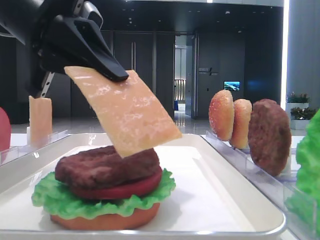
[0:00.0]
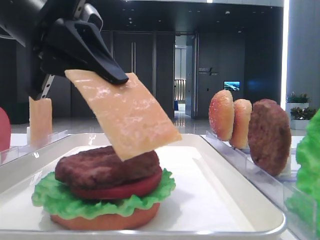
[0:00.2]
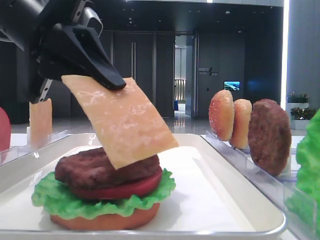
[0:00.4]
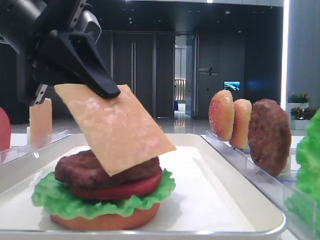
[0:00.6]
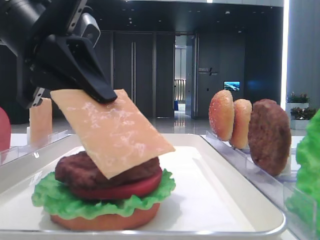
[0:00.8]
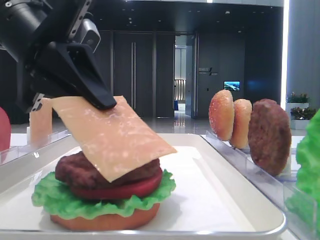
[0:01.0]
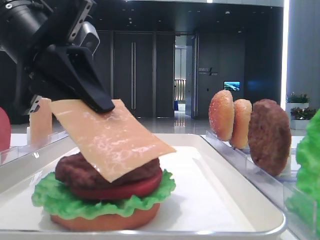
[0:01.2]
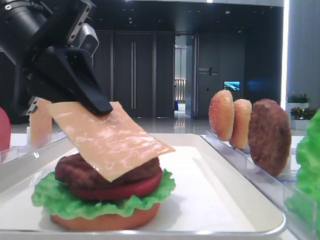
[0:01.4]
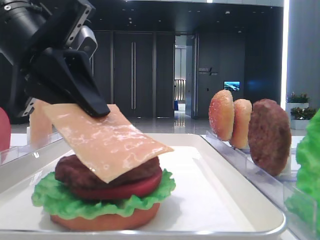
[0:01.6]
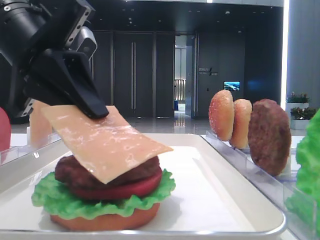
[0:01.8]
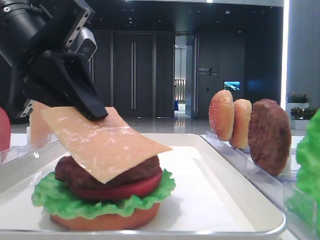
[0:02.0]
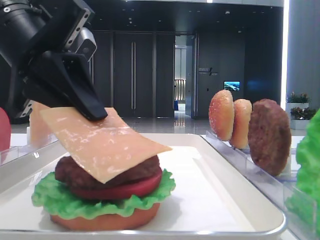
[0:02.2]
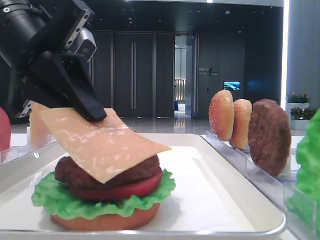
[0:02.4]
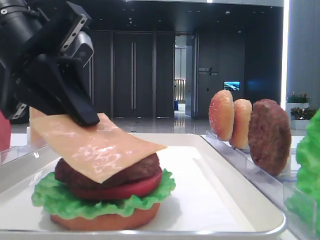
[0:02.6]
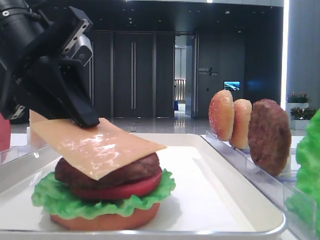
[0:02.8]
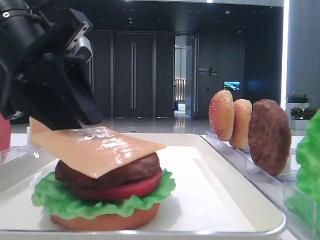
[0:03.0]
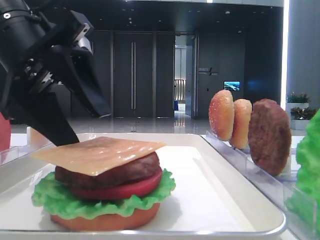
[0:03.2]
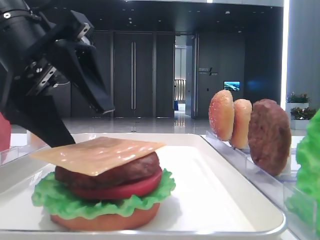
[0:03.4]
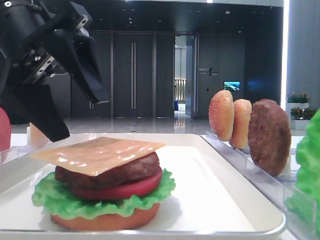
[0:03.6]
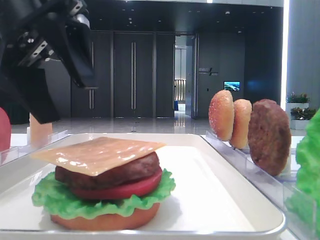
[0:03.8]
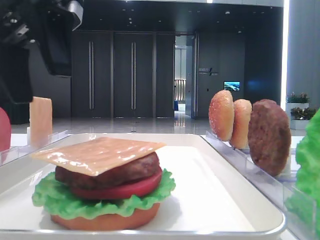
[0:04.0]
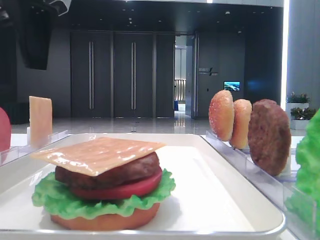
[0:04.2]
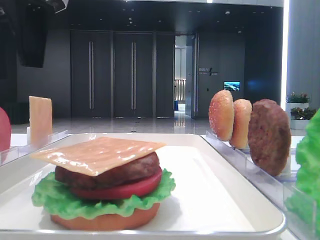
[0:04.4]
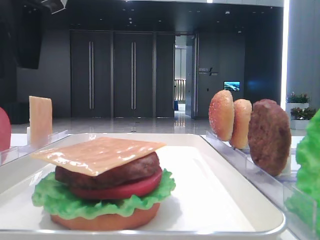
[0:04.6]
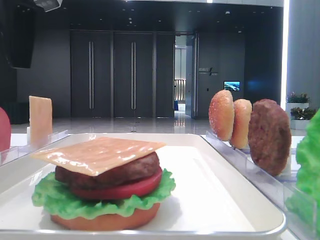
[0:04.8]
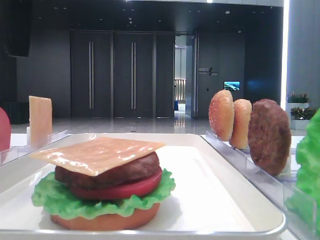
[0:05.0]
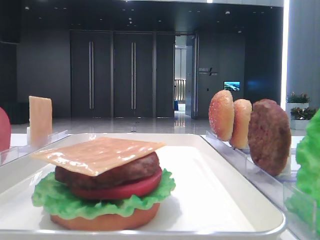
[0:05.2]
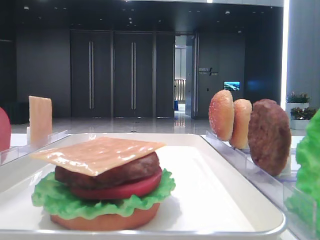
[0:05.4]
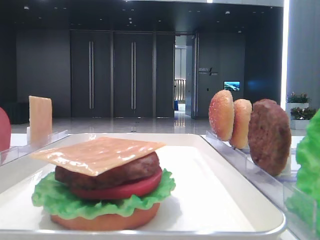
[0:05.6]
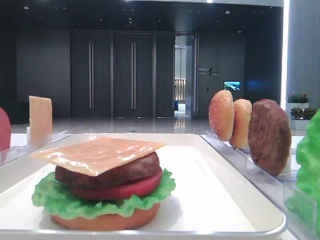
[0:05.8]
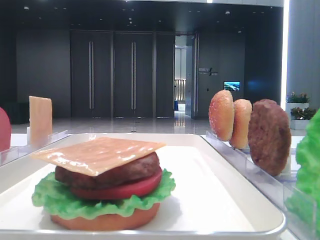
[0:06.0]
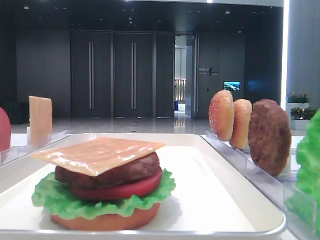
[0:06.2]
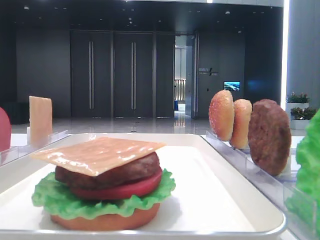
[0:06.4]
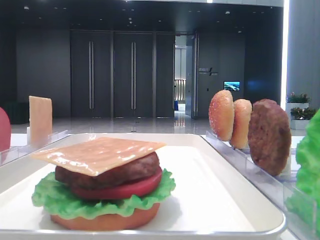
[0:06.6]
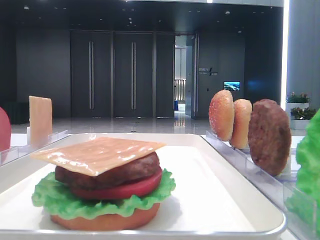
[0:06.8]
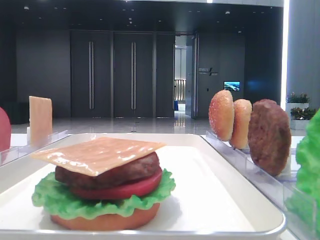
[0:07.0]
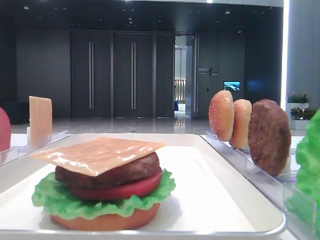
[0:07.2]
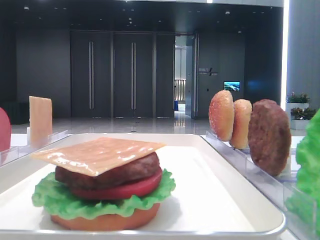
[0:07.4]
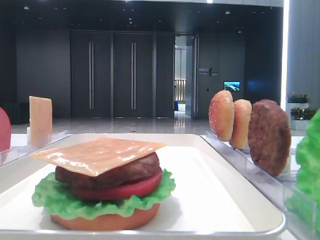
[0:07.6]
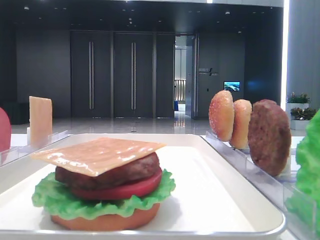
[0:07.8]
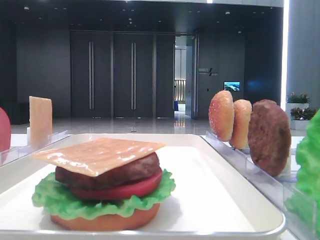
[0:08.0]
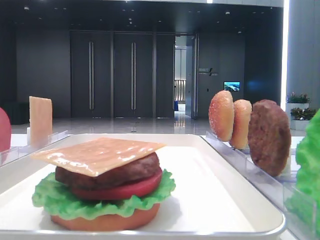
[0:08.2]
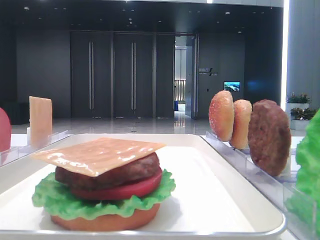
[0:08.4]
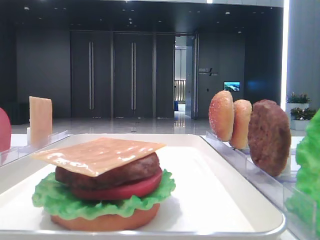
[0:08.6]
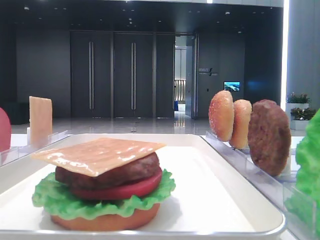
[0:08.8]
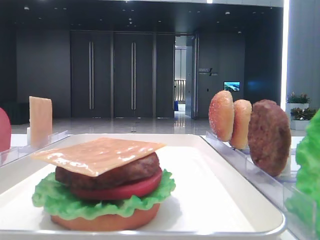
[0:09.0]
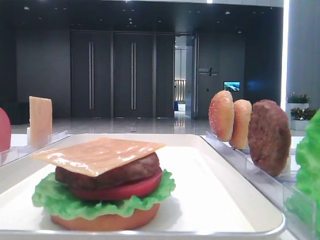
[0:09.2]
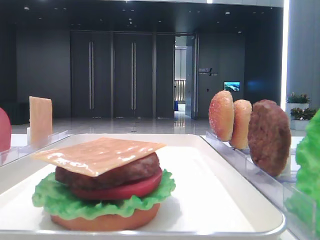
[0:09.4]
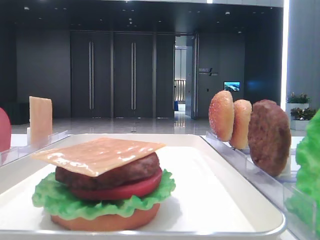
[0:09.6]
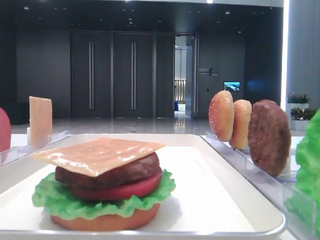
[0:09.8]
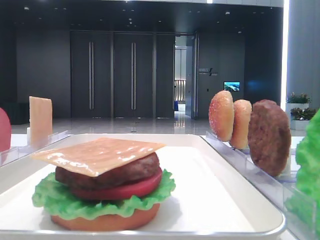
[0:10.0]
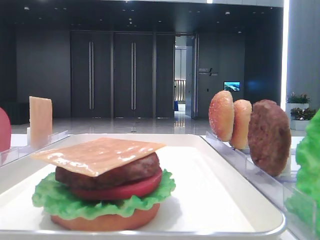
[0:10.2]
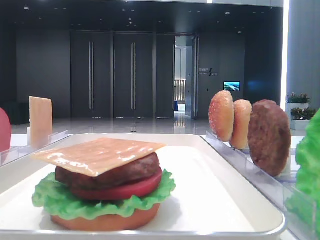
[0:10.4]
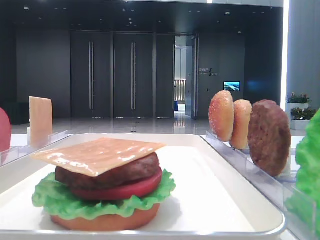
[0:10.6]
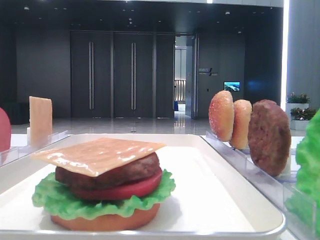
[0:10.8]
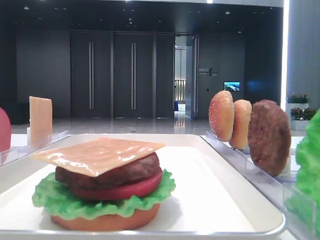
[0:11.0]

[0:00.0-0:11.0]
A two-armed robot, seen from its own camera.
Step, 0:00.0 to 0:03.2: Place the cheese slice on the patty with the left hand.
0:00.0 to 0:01.6: The grippers make only small movements.
0:01.6 to 0:03.2: The left gripper opens up.
0:03.2 to 0:04.8: The left gripper goes roughly 10 cm upward.
0:04.8 to 0:06.2: The left gripper is displaced to the left by some 15 cm.

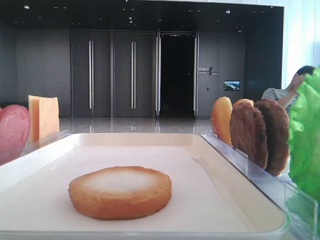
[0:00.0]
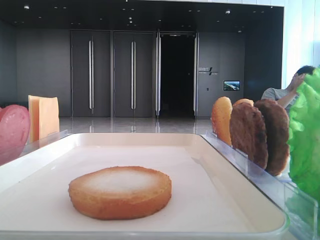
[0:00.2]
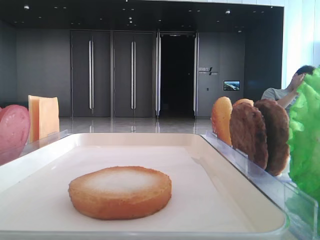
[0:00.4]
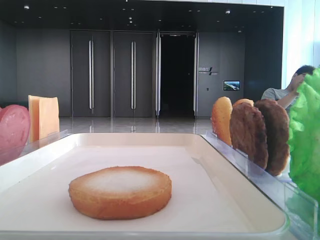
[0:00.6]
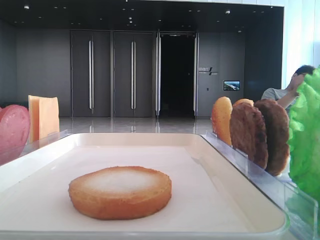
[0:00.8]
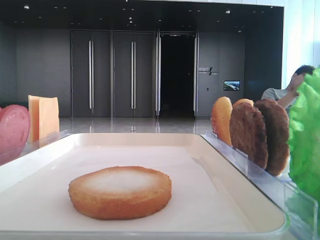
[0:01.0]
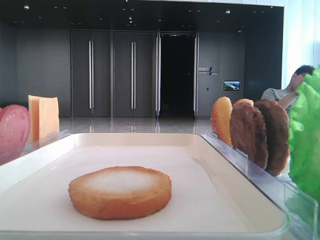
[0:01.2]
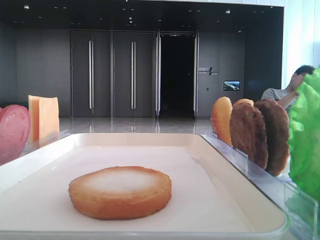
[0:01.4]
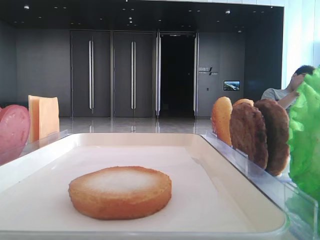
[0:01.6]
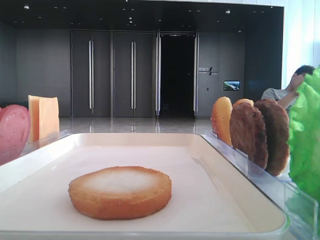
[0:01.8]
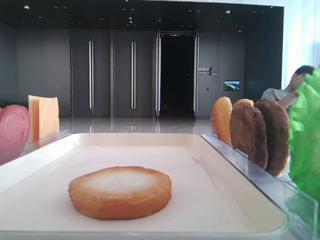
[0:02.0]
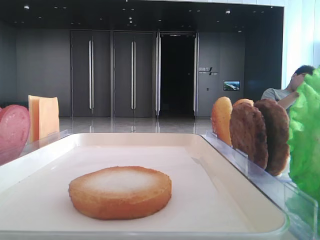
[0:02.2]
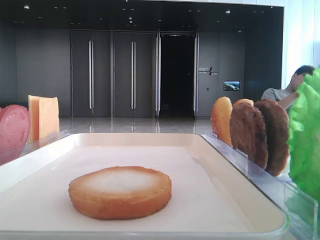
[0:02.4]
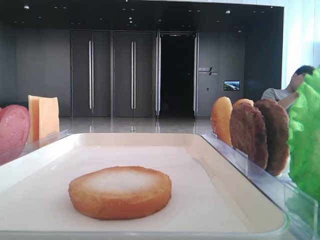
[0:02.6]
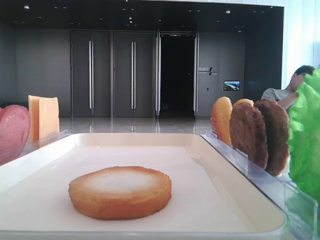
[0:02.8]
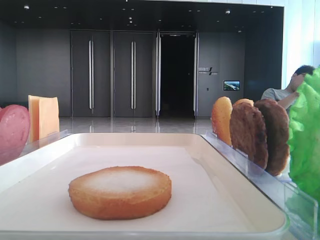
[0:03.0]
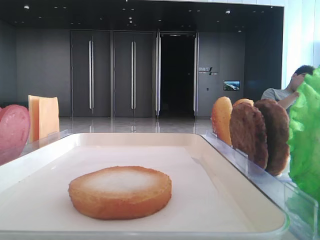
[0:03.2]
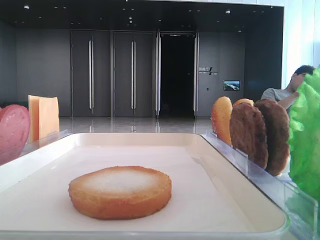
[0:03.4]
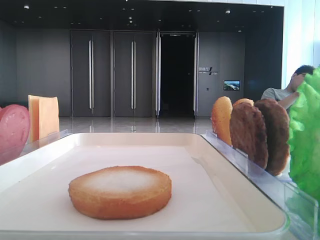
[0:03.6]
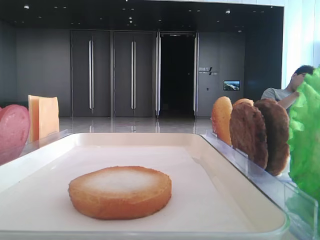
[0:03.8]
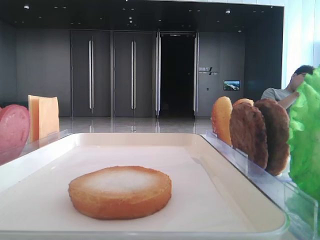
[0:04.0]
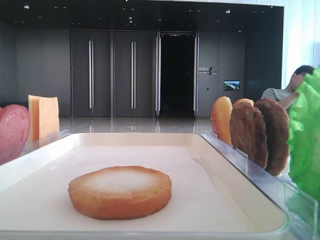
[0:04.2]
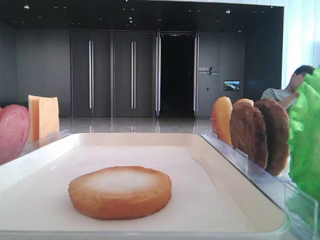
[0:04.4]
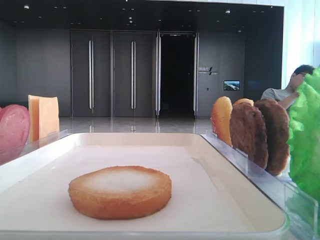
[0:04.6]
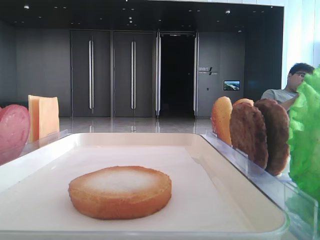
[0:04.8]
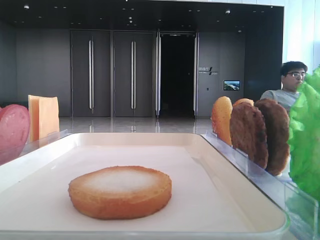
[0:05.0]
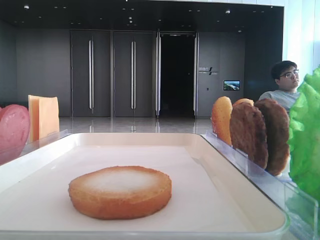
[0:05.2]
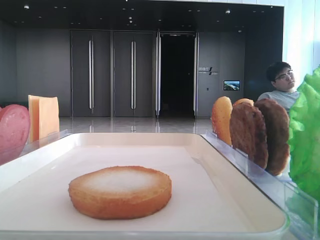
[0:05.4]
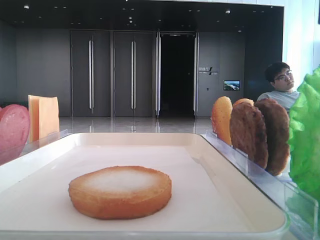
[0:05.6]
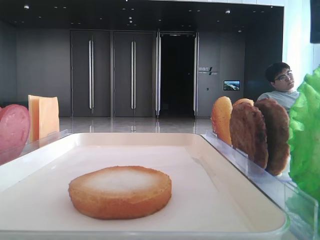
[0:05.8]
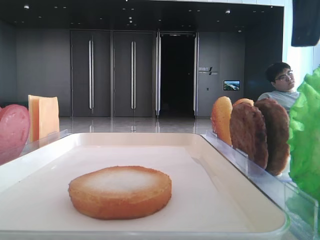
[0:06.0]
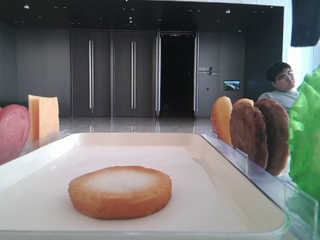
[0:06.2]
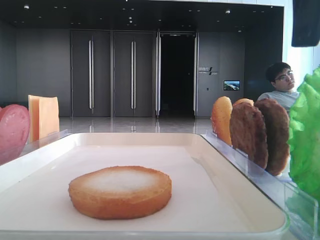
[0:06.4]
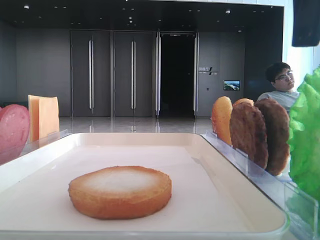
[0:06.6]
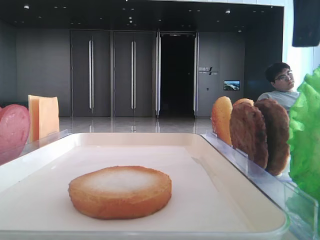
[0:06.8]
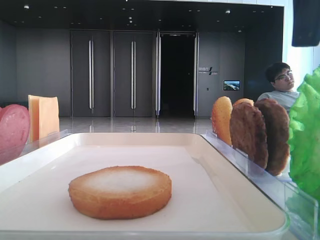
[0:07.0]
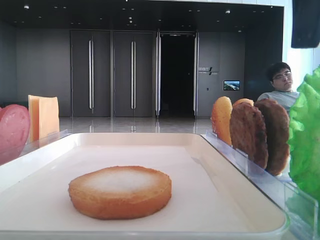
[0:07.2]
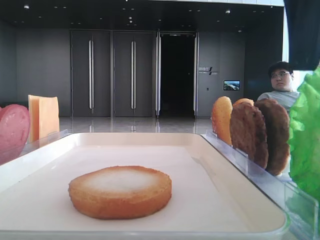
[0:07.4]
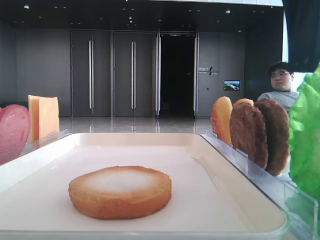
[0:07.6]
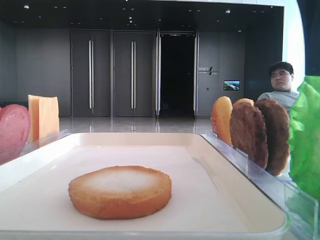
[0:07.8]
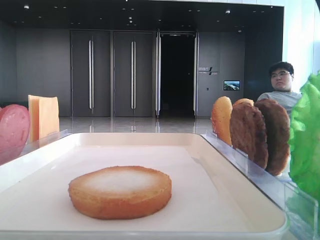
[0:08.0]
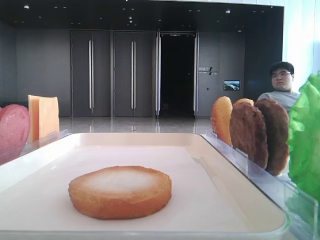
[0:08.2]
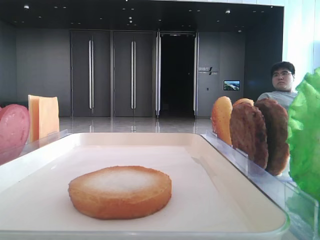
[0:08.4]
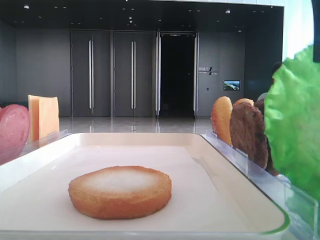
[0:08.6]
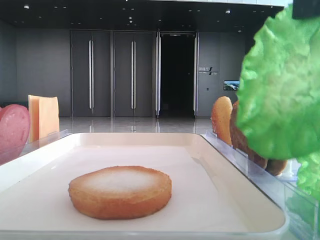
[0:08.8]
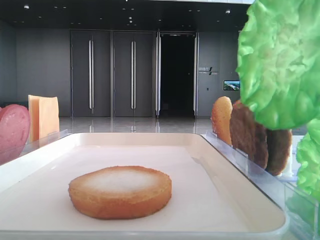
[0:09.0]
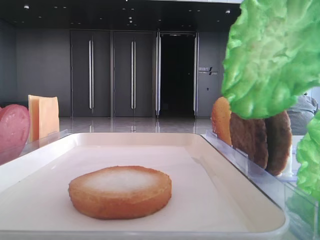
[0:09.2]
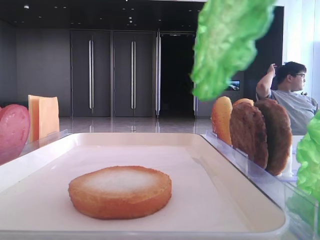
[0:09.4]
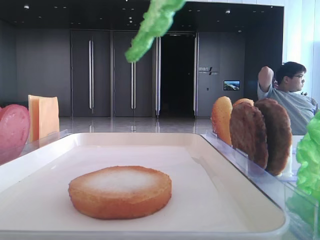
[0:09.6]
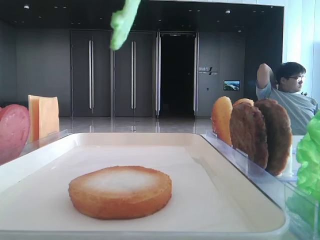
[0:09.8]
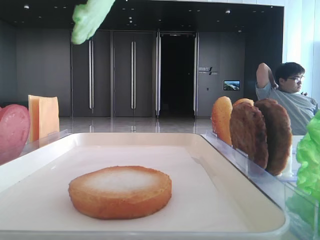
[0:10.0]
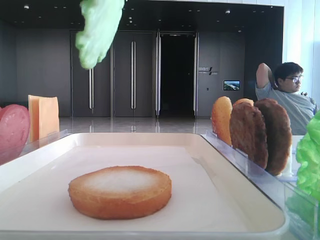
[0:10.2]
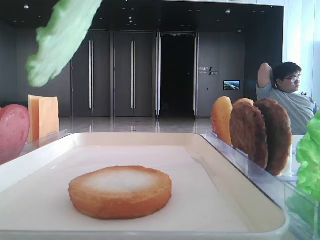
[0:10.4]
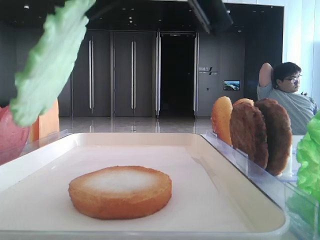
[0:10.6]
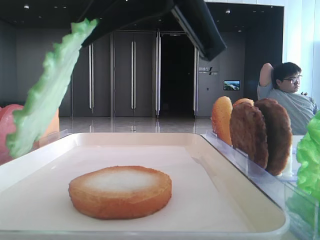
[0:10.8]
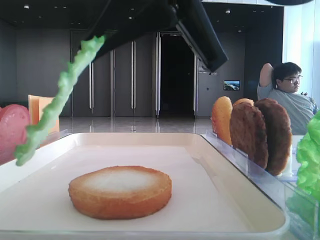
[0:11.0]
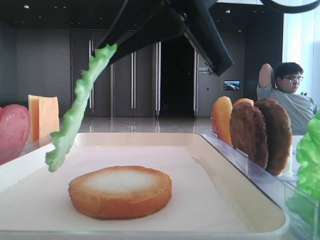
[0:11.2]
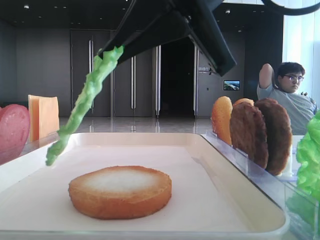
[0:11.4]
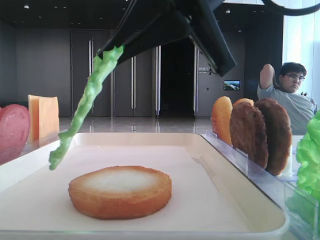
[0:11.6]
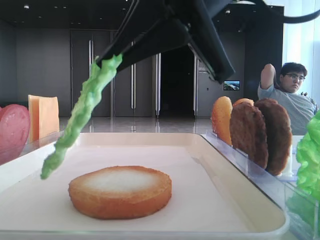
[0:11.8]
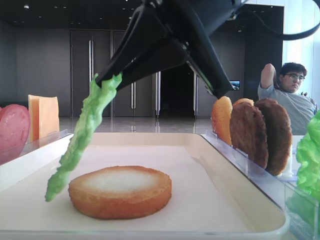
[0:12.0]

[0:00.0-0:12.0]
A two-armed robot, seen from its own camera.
Step, 0:00.0 to 0:08.2: Grab the lettuce leaf with the right hand.
0:04.4 to 0:06.0: The right gripper goes approximately 10 cm to the left and downward.
0:06.0 to 0:07.6: There are only small adjustments of the grippers.
0:07.6 to 0:09.0: The right gripper goes about 5 cm upward, and closes.
0:09.0 to 0:10.4: The right gripper shifts approximately 5 cm to the left.
0:10.4 to 0:12.0: The right gripper is displaced downward by about 10 cm.
